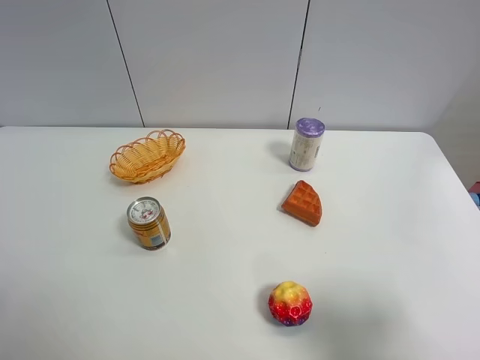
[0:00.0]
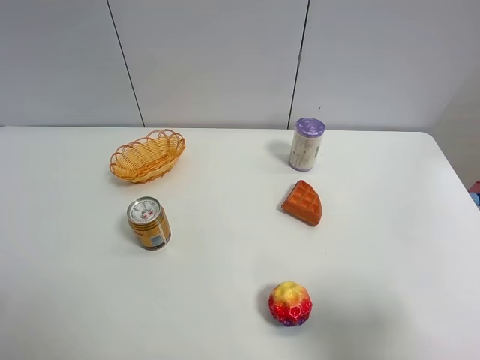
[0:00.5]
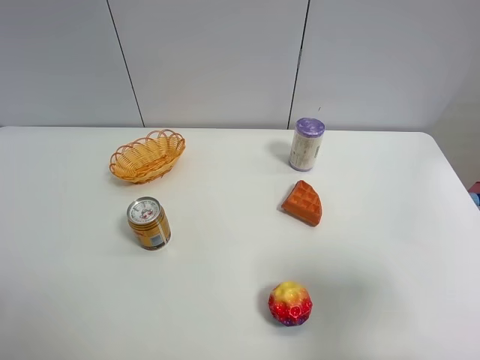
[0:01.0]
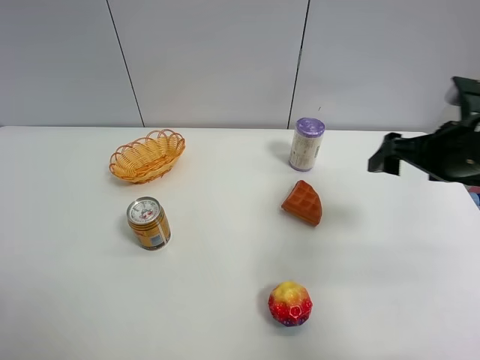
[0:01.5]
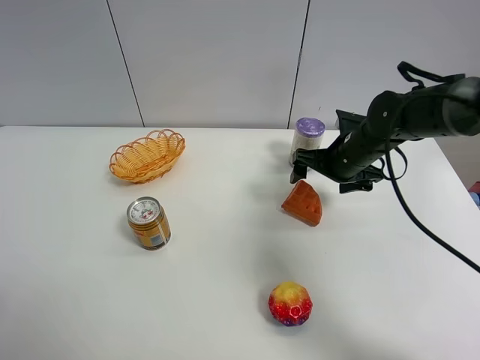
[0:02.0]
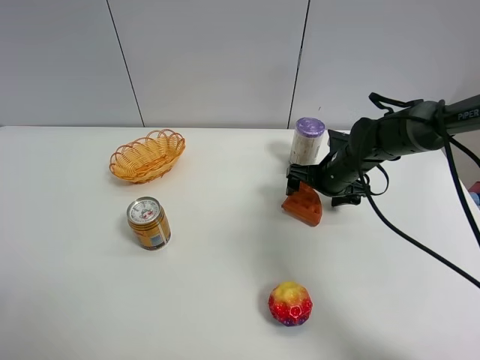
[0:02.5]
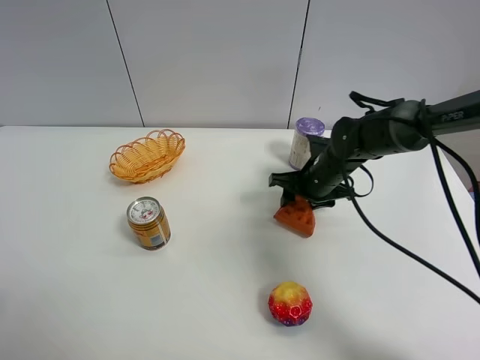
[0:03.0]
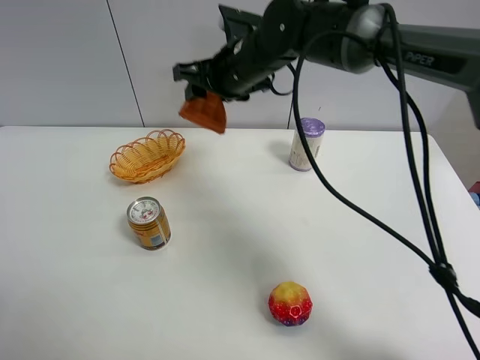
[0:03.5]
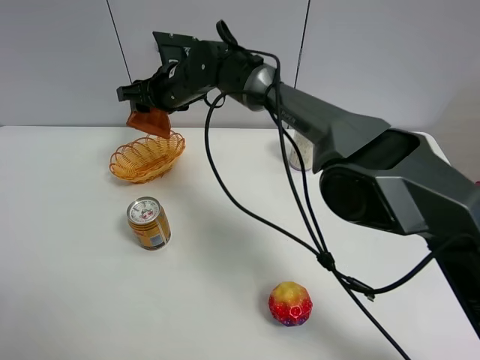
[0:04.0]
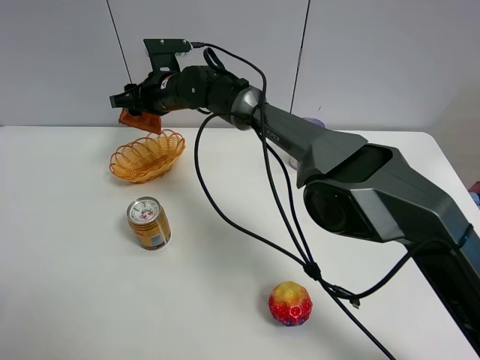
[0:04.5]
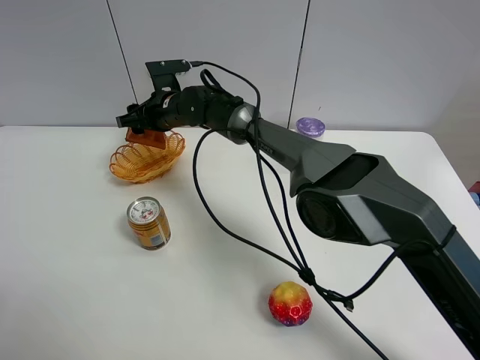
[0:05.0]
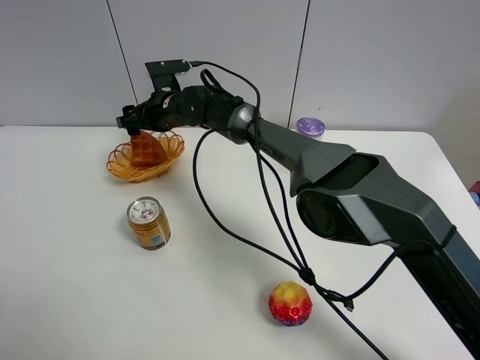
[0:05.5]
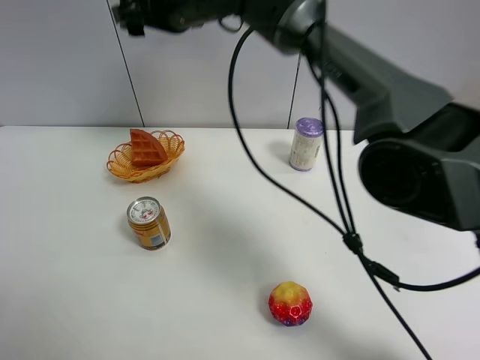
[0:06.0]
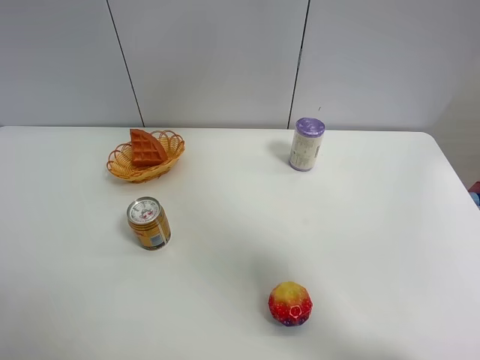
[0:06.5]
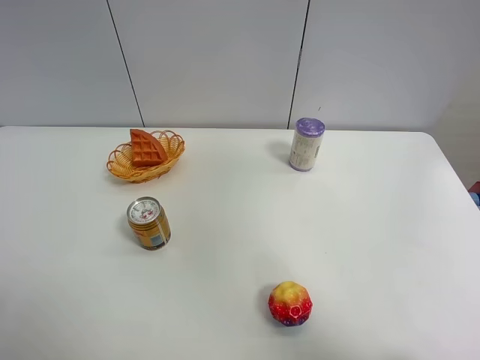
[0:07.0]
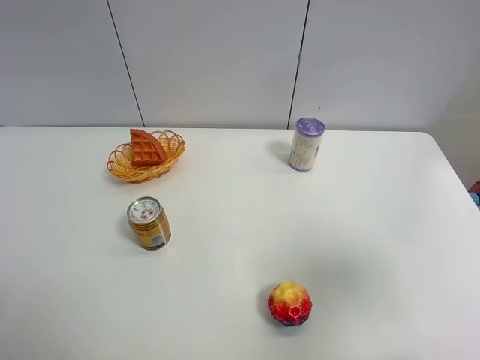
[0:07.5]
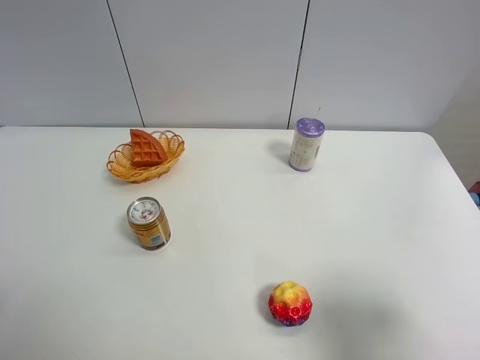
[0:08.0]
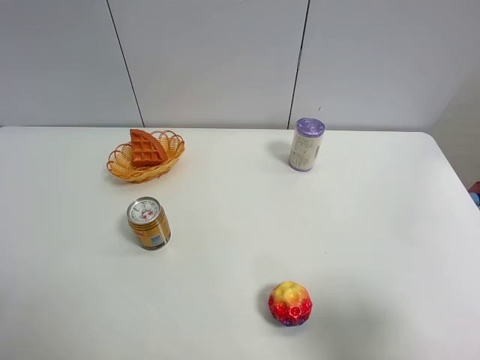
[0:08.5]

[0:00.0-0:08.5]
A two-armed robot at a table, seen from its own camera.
Task of the whole recording: Put the bakery in the basket.
Step, 0:00.0 to 0:02.5: Grasp the bread with right gripper.
Step, 0:03.0 to 0:05.5: Place the bread in the basket with right gripper.
0:00.0 to 0:02.0: The right gripper heads forward, covering roughly 35 cm.
0:02.0 to 0:04.0: The right gripper shifts some 30 cm to the left, and closes.
0:04.0 to 0:06.5: The right gripper shifts roughly 50 cm upward, to the right and backward, and opens.
0:06.5 to 0:08.5: The right gripper moves downward, backward and to the right, approximately 40 cm.

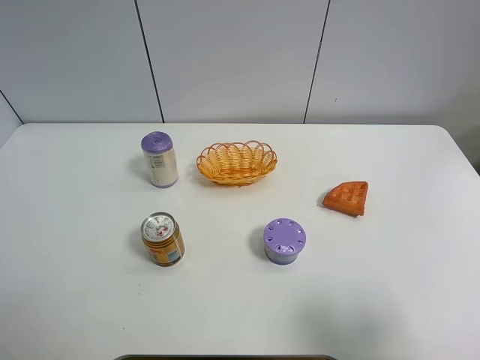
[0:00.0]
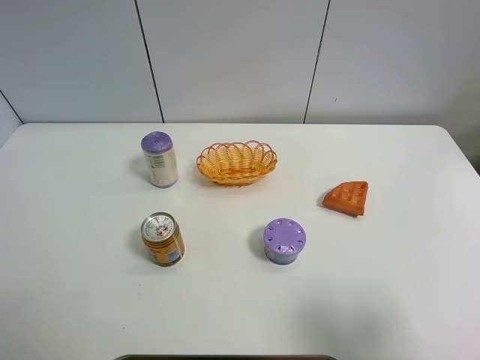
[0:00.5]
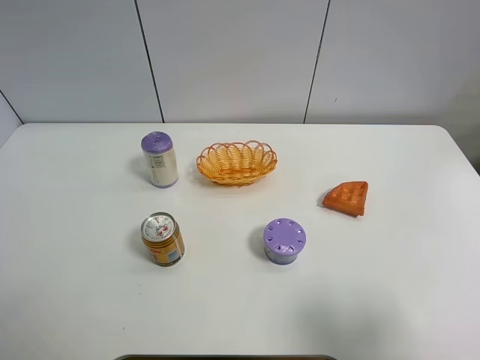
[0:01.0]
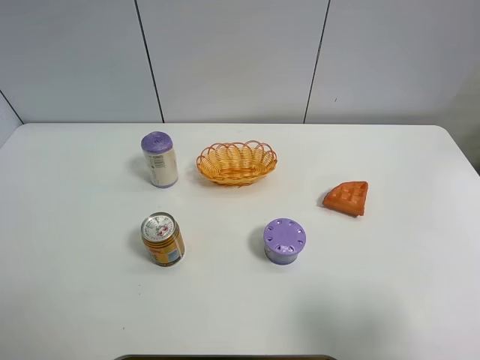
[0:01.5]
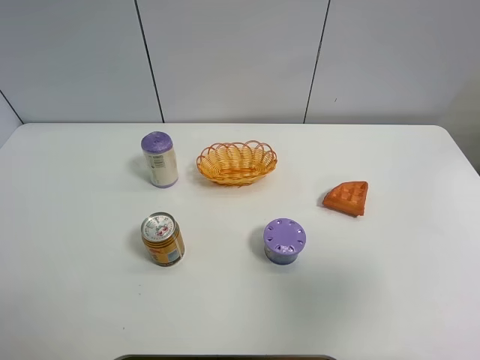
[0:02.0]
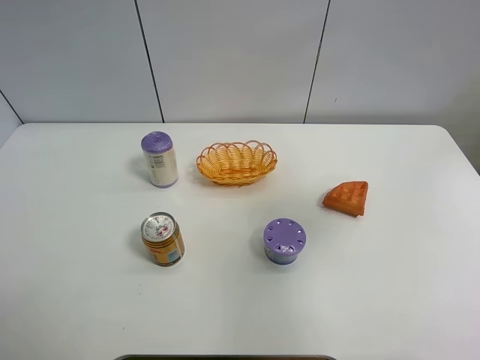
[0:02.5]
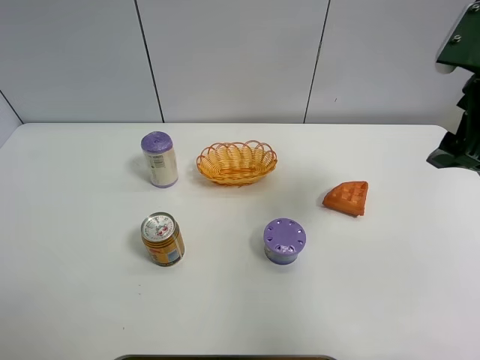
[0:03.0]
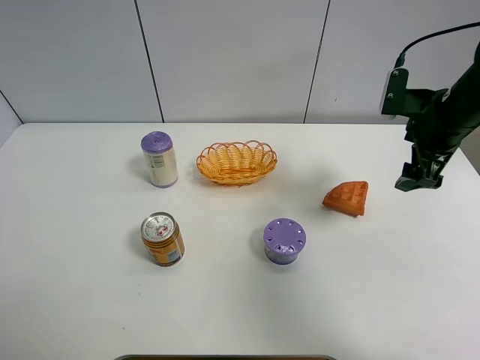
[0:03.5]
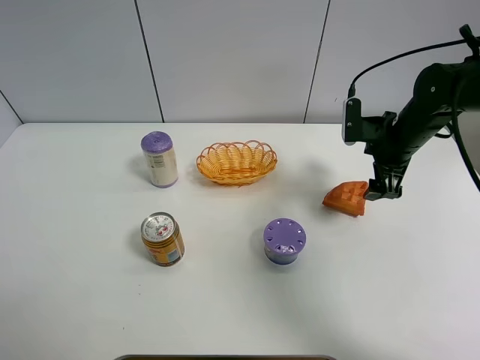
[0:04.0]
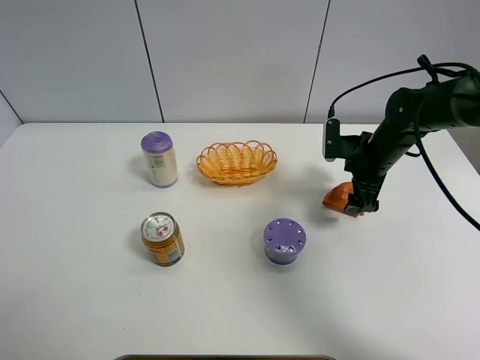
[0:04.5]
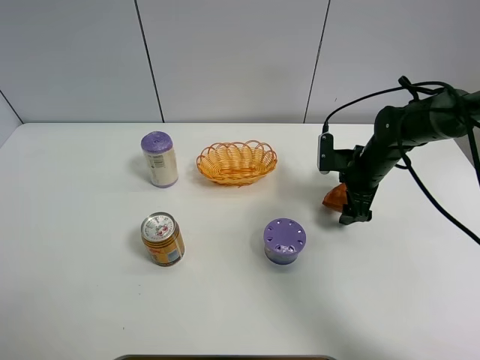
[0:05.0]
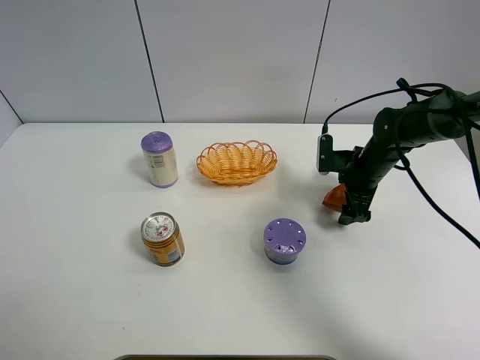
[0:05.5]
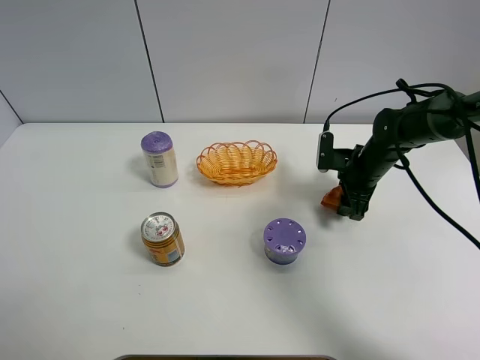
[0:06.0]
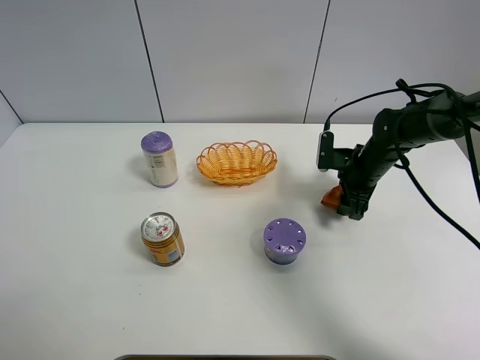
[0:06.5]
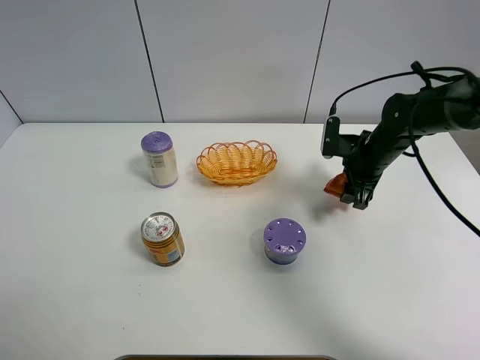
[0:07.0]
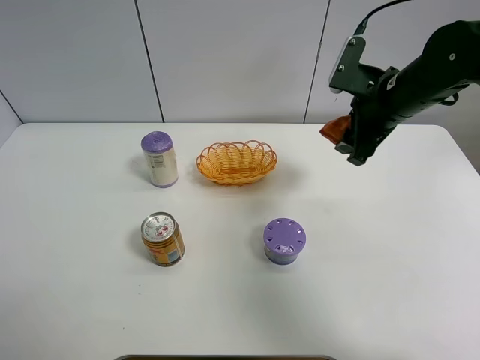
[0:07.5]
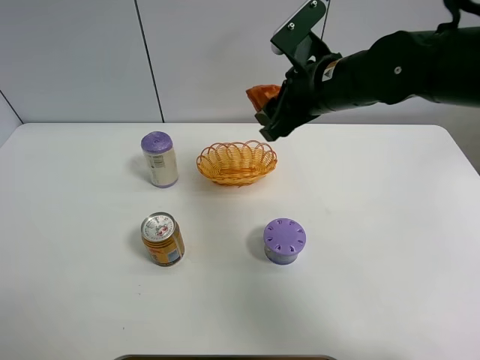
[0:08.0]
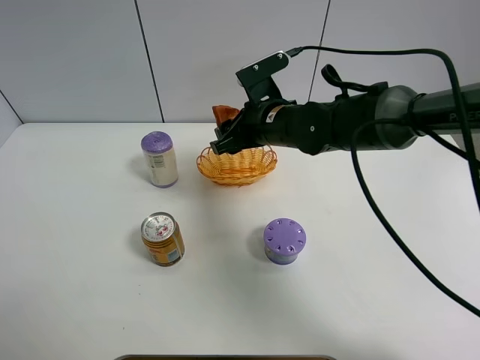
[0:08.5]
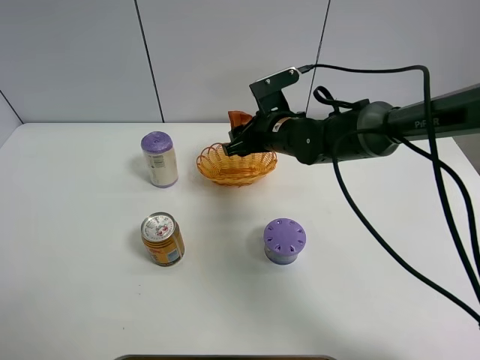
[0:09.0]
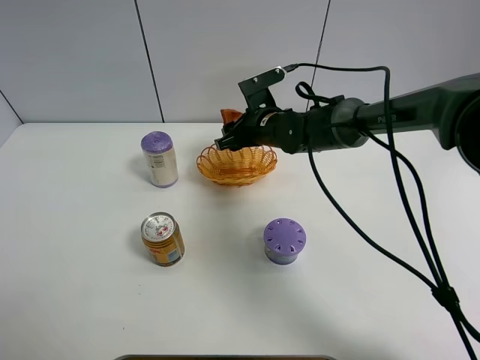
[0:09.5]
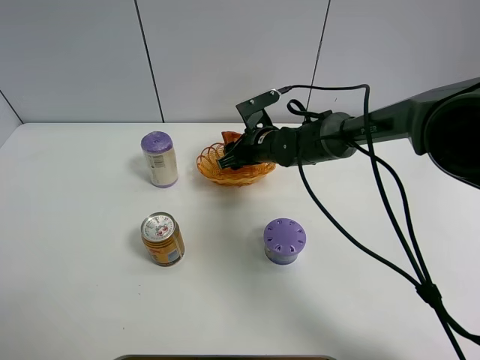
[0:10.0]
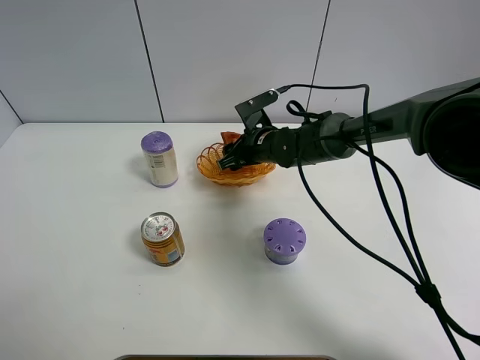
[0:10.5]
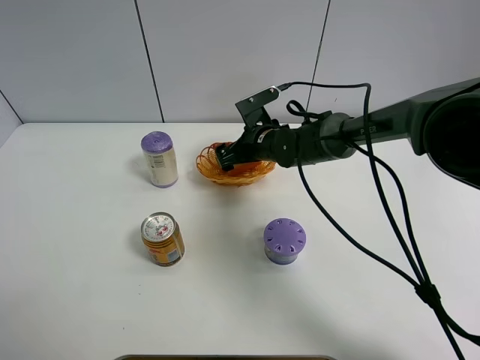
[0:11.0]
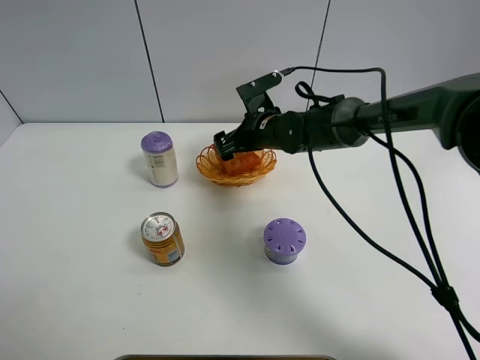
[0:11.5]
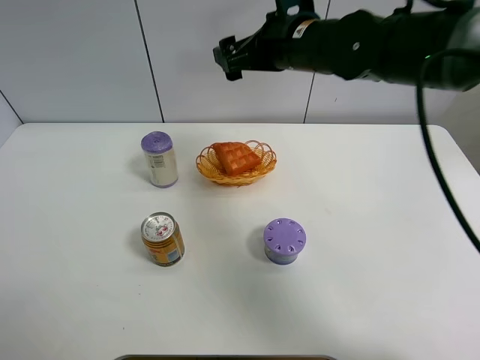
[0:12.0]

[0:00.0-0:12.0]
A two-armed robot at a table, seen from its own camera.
Task of the whole recording: Put the bakery in the basket.
Step, 0:00.0 to 0:05.5: Grasp the bread with right gripper.
Step, 0:06.0 to 0:11.5: Place the bread in the basket with right gripper.
0:00.0 to 0:02.0: The right gripper goes some 10 cm upward and forward.
0:02.0 to 0:04.0: The right gripper travels forward and downward by approximately 35 cm.
0:04.0 to 0:06.0: The right gripper goes approximately 10 cm downward, and closes its fingers.
0:06.0 to 0:08.0: The right gripper goes about 20 cm upward and to the left.
0:08.0 to 0:10.0: The right gripper goes about 20 cm downward and forward.
0:10.0 to 0:12.0: The right gripper is displaced upward by about 20 cm, and opens up.

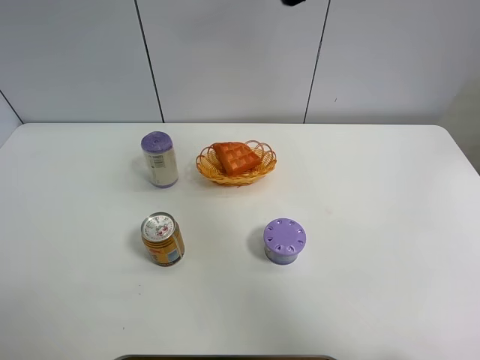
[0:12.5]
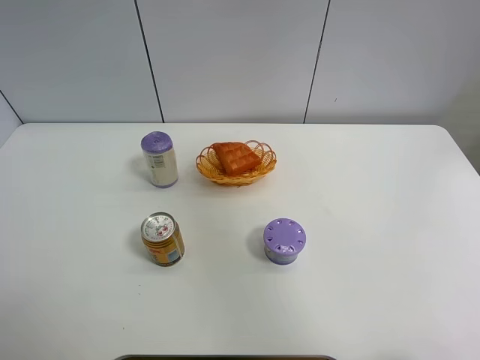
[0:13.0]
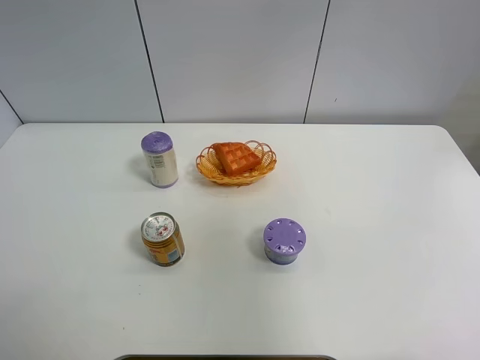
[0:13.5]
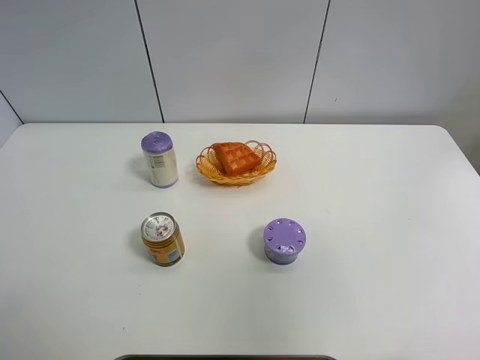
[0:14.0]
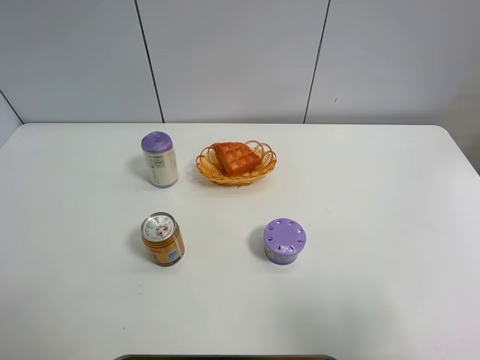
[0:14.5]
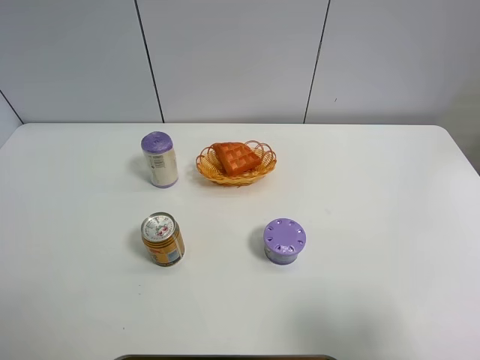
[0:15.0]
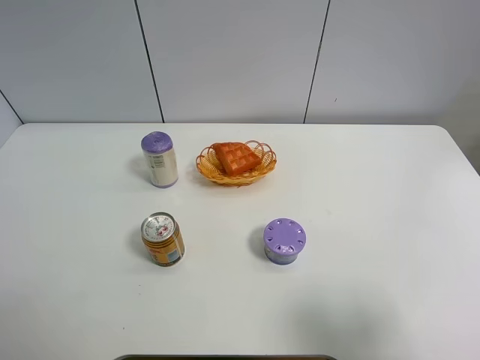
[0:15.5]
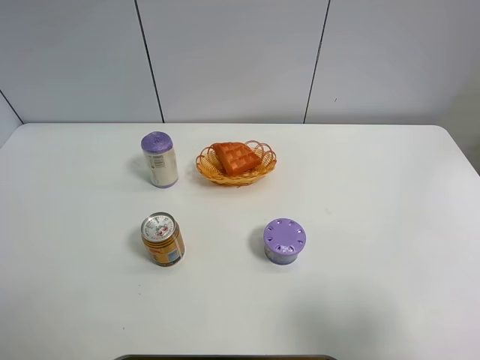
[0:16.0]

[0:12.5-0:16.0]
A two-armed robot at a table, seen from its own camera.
Task of the whole recording: Put the bakery in the basket.
0:12.5 to 0:14.5: The right gripper is displaced backward and to the right by some 35 cm.

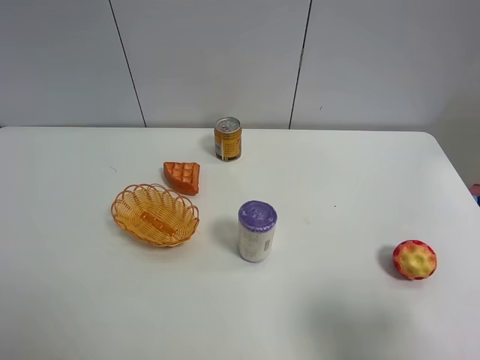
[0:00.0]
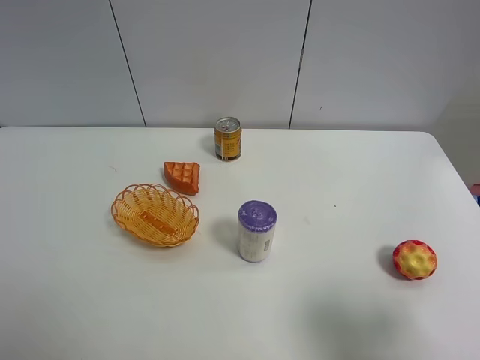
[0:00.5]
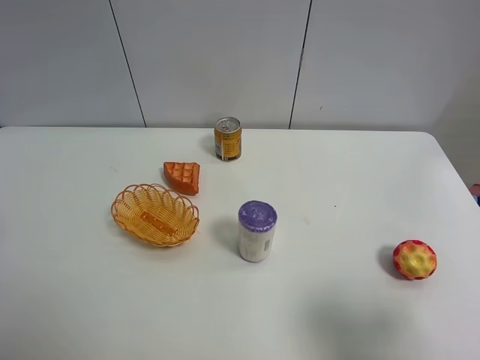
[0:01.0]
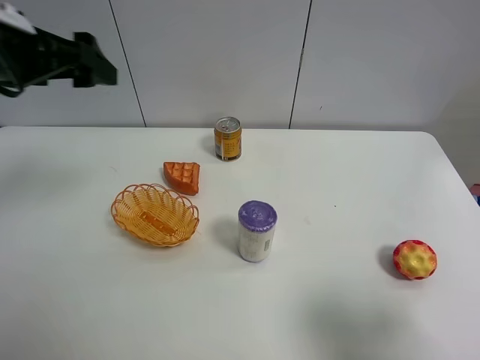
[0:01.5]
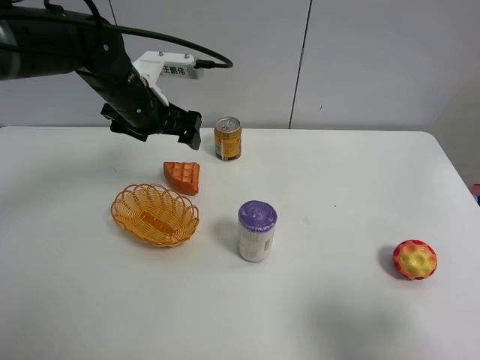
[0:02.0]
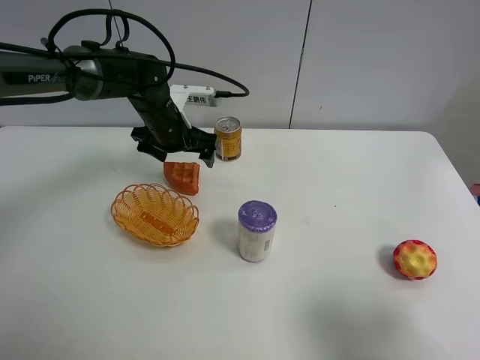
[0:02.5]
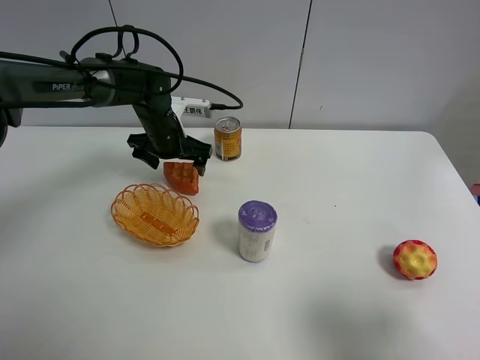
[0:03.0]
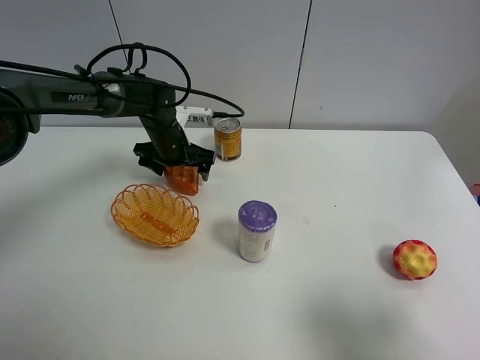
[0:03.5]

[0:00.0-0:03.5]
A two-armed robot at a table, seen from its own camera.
Task of the whole recording: Put the bakery in the basket.
0:00.0 to 0:02.0: The left gripper heads forward and to the right, covering about 40 cm.
0:02.0 to 0:03.5: The left gripper moves downward and forward, some 15 cm.
